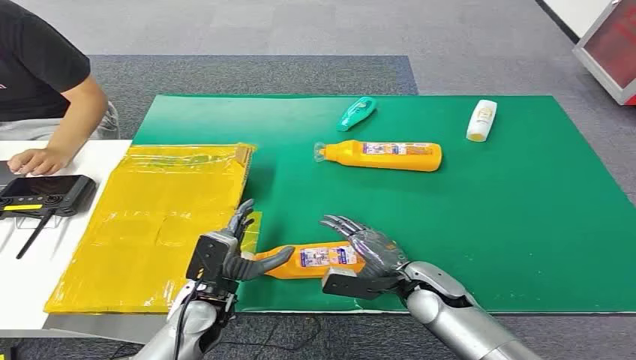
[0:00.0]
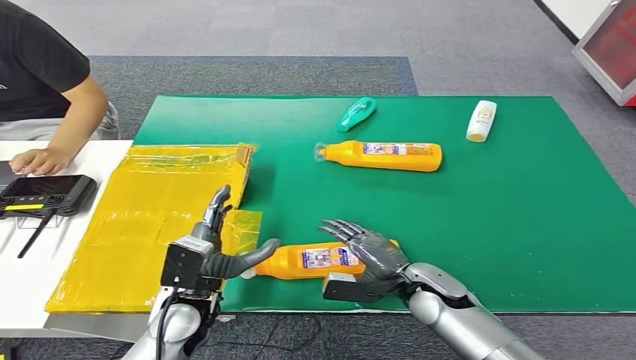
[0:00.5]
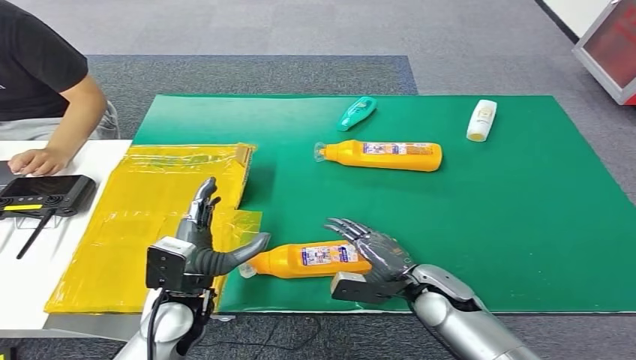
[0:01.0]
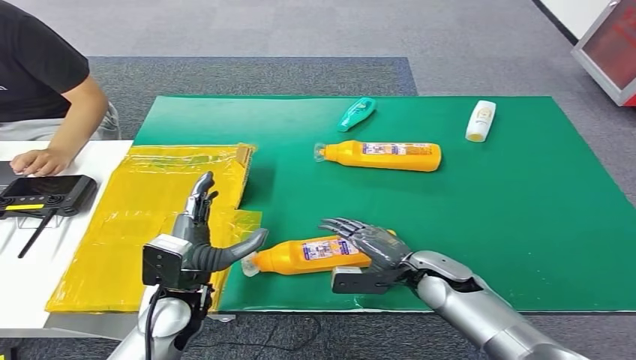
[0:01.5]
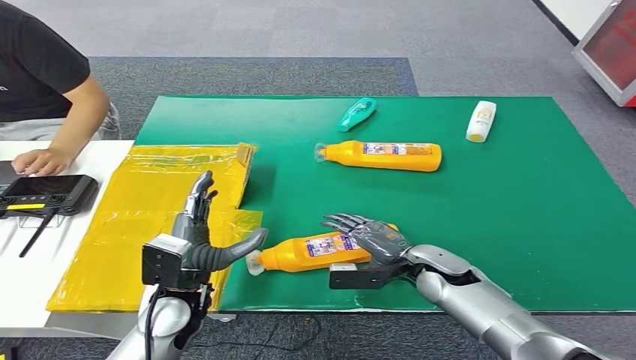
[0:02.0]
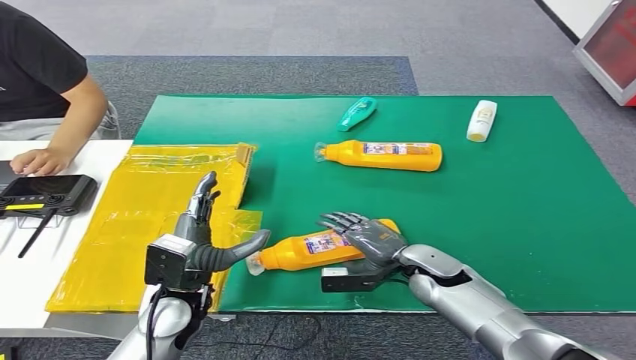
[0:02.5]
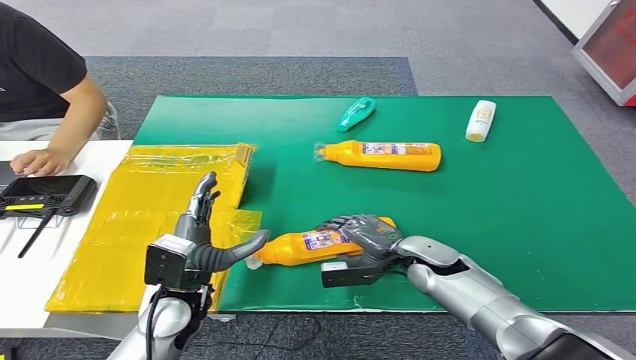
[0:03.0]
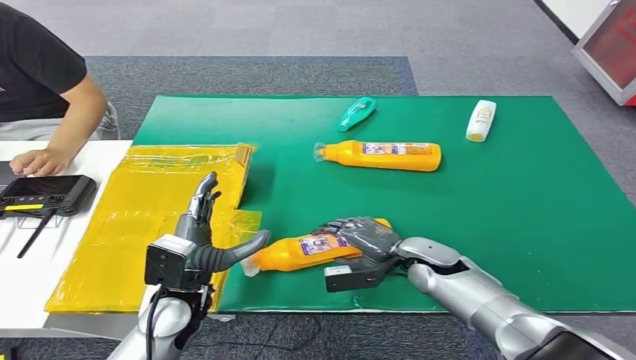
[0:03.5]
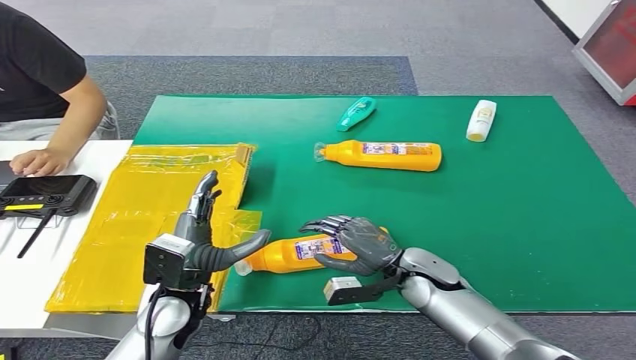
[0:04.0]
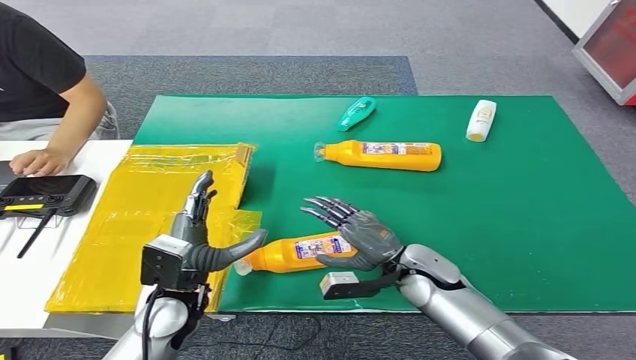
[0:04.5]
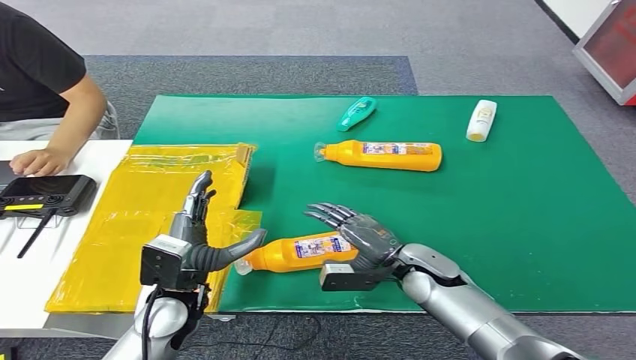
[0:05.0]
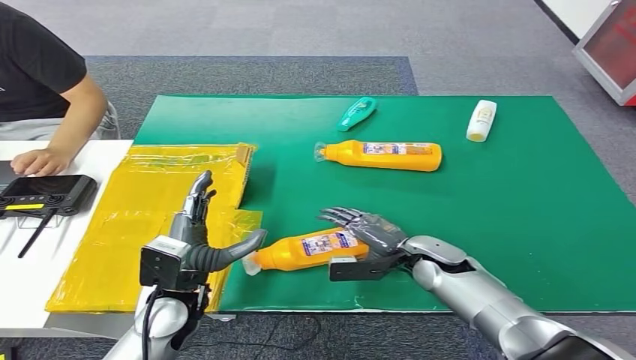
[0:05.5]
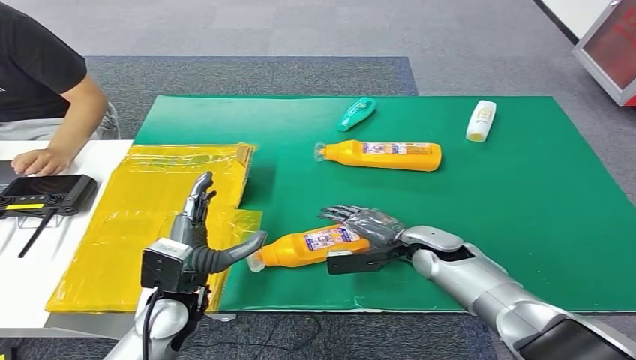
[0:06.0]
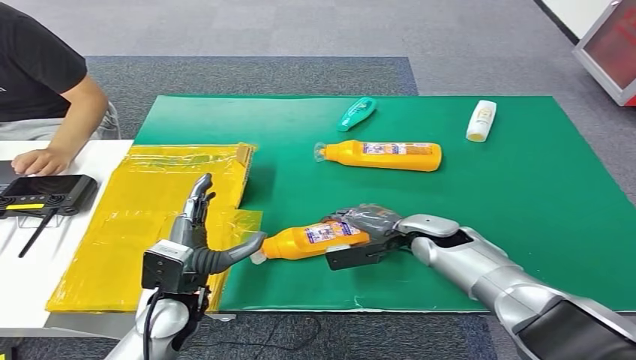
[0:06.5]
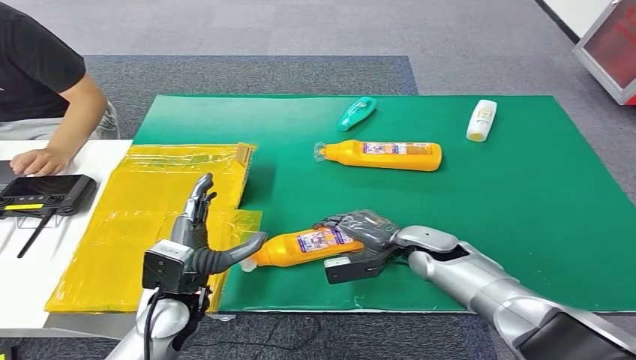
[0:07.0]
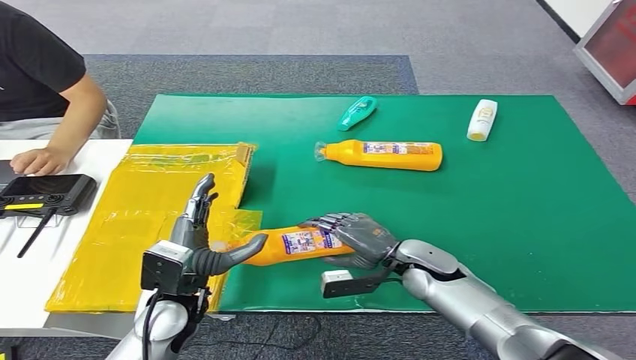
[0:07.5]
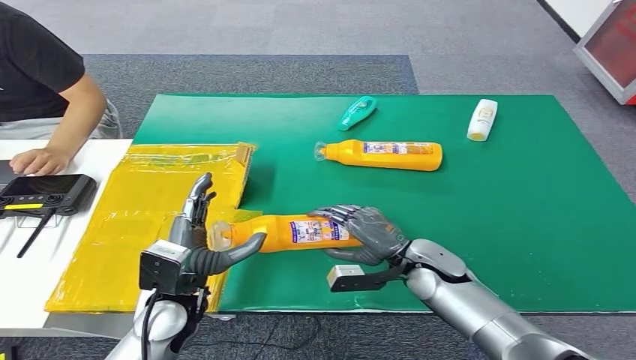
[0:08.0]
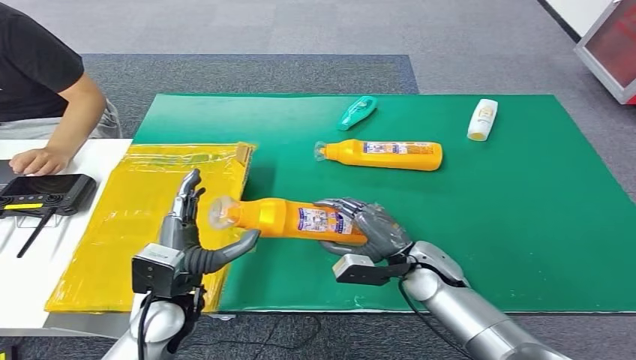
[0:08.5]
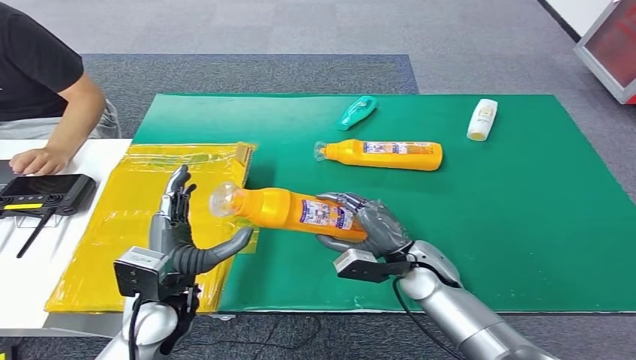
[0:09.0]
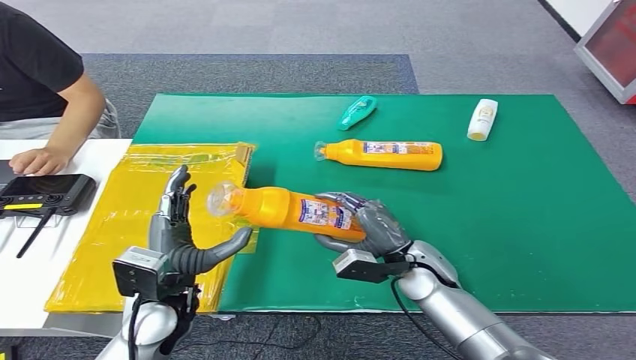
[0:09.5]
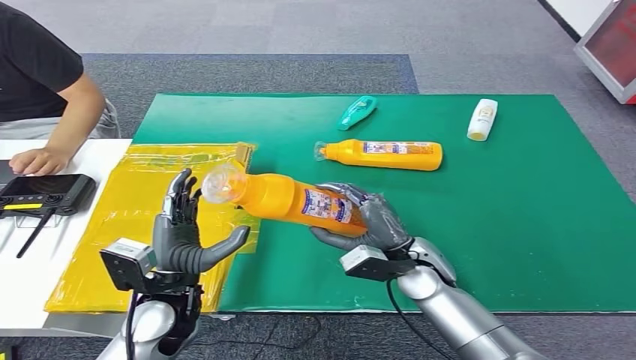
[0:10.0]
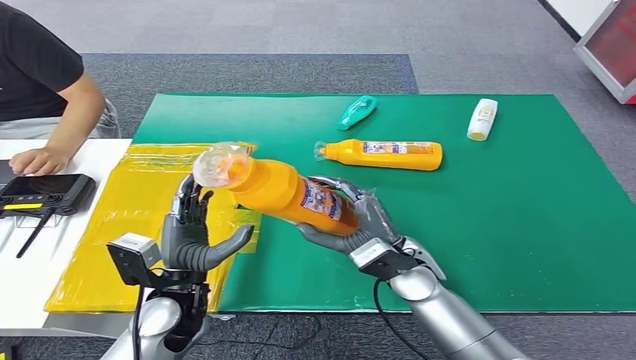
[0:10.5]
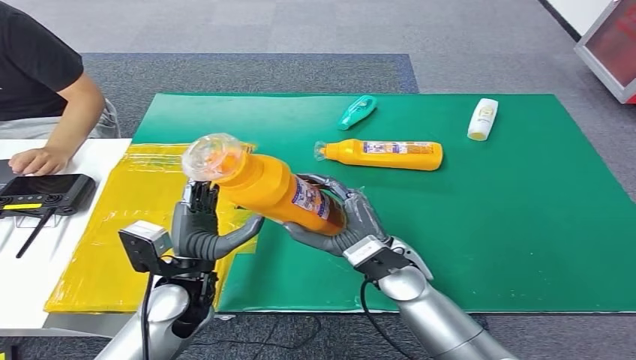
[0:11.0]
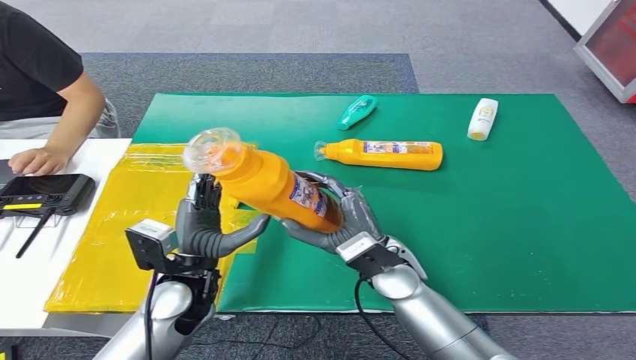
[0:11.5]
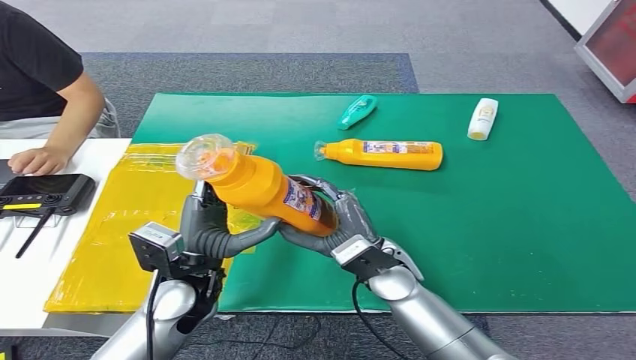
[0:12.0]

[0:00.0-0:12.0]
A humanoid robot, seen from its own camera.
Step, 0:00.0 to 0:11.5: Pick up the bottle from the table.
0:04.0 to 0:06.0: The right hand goes about 5 cm forward.
0:10.0 to 0:12.0: The right hand shifts roughly 5 cm to the left.

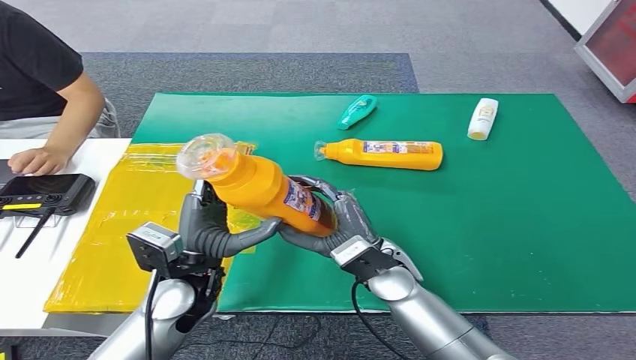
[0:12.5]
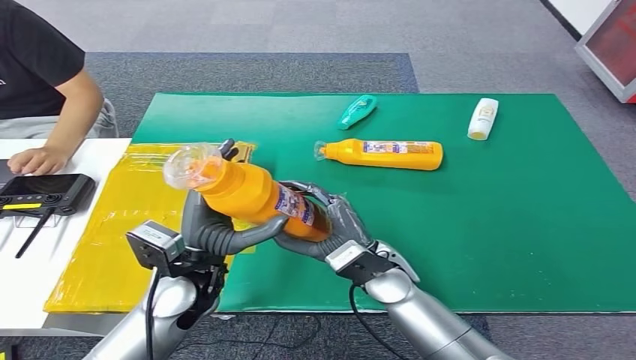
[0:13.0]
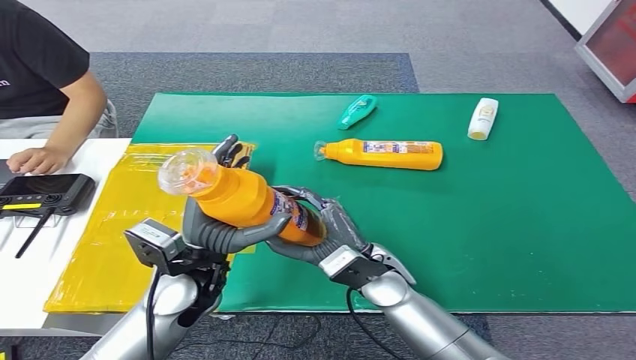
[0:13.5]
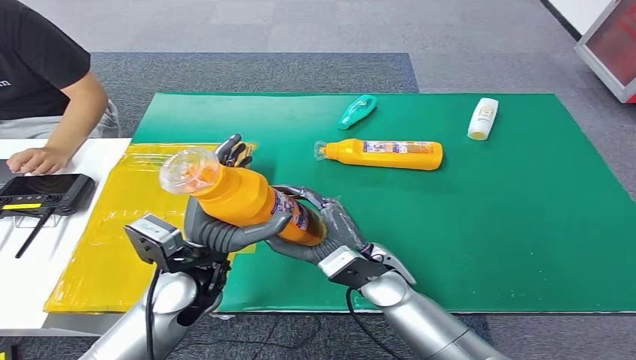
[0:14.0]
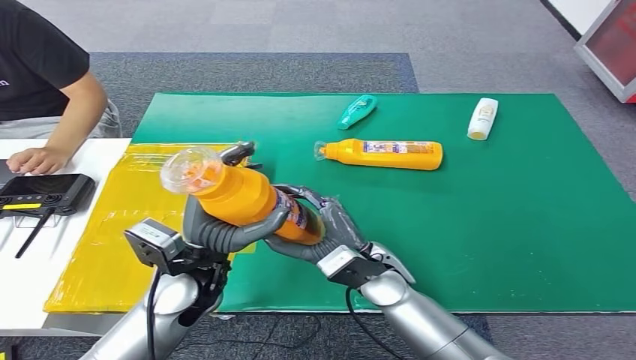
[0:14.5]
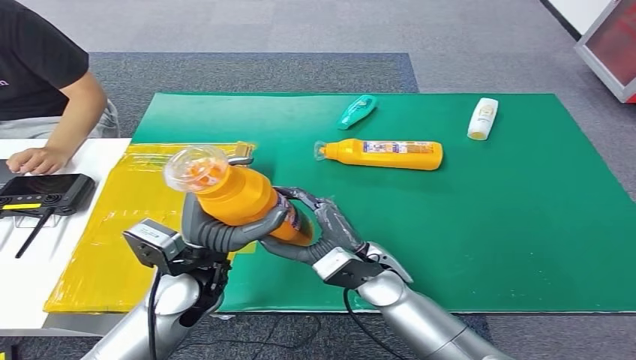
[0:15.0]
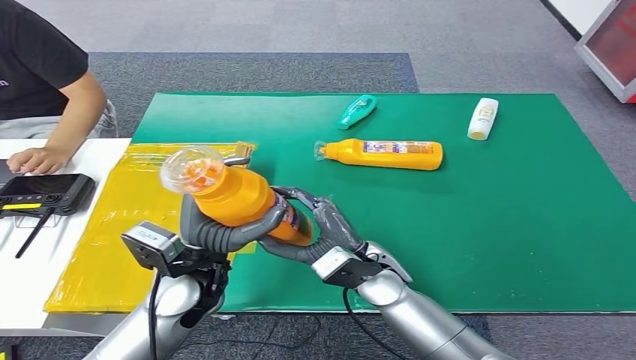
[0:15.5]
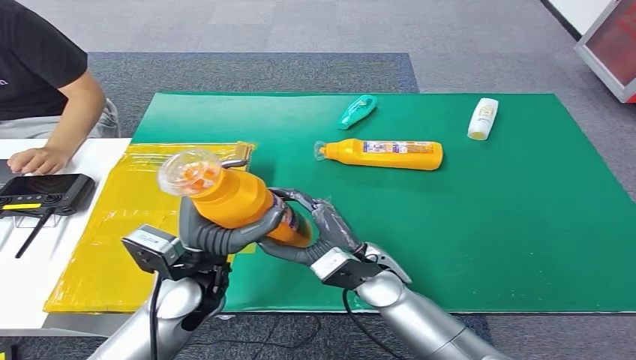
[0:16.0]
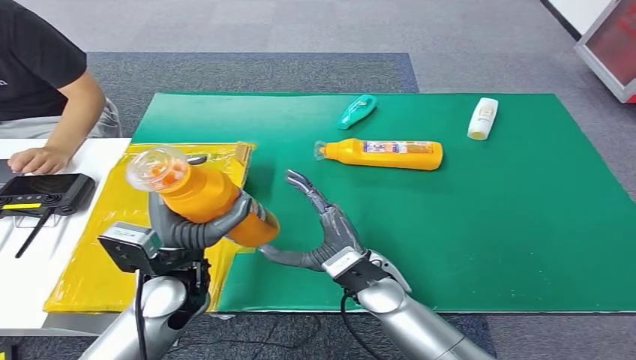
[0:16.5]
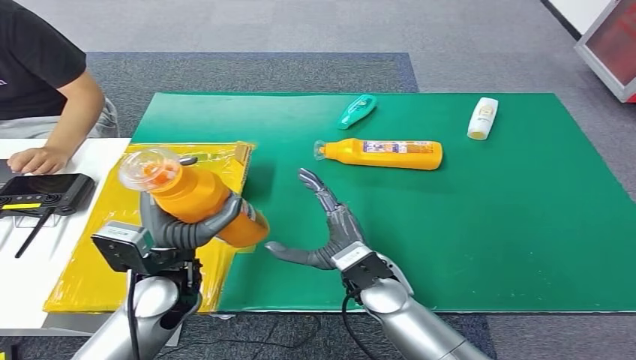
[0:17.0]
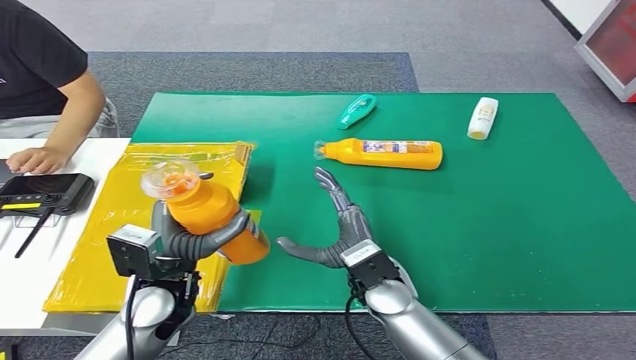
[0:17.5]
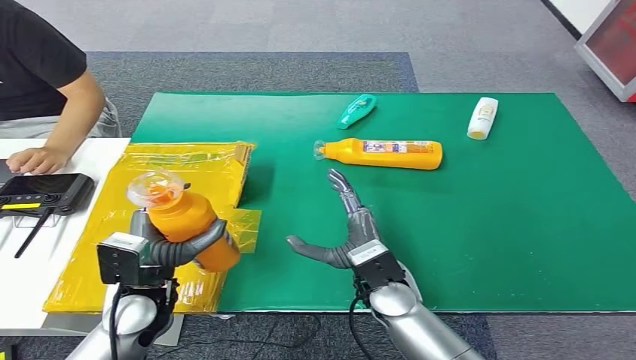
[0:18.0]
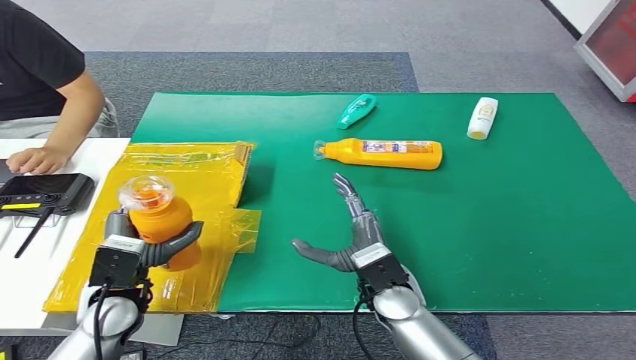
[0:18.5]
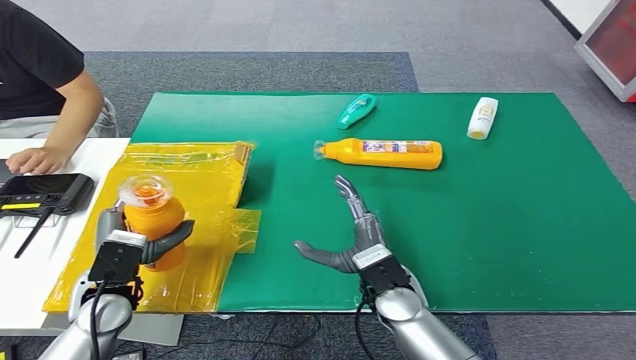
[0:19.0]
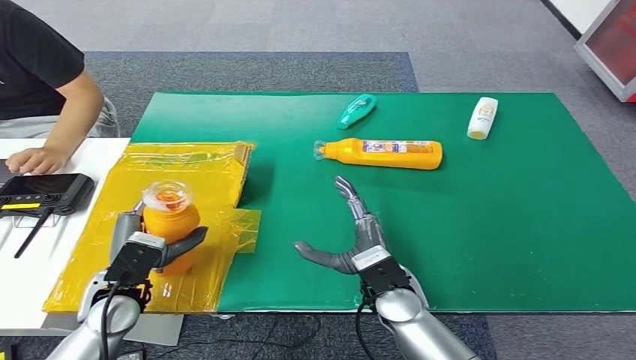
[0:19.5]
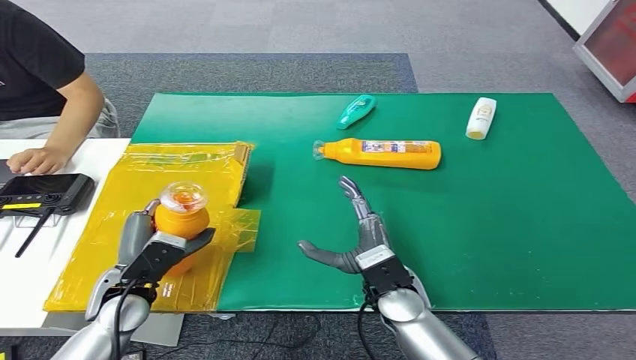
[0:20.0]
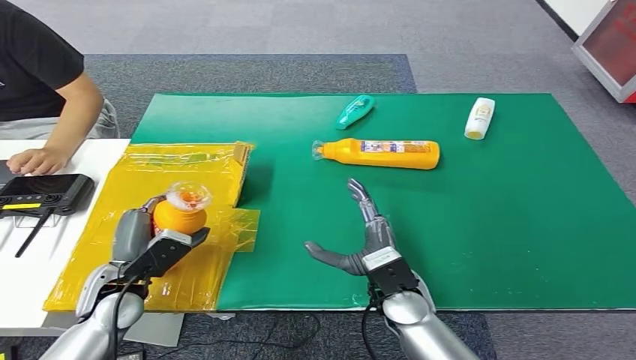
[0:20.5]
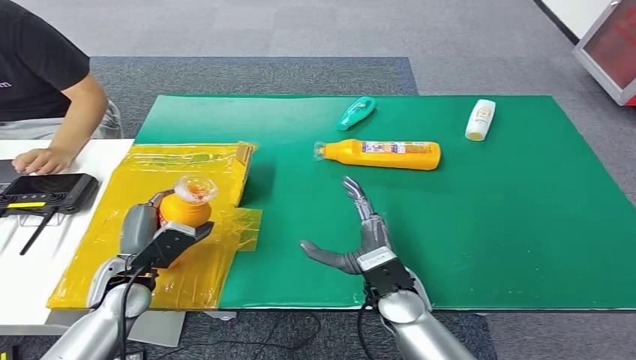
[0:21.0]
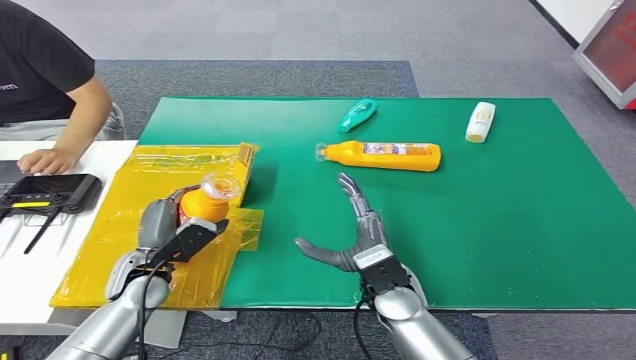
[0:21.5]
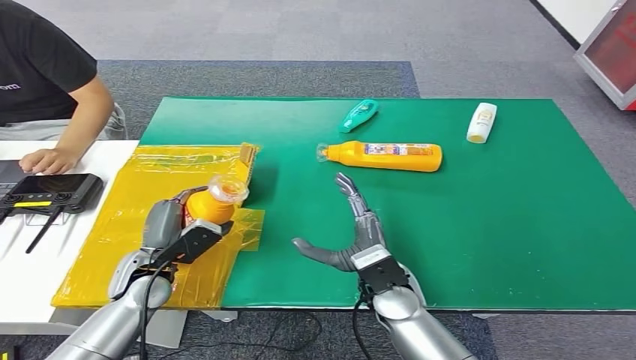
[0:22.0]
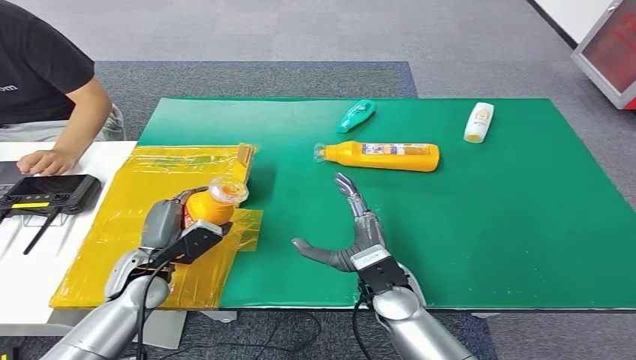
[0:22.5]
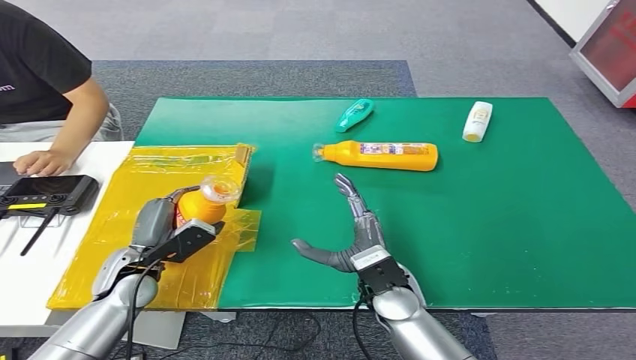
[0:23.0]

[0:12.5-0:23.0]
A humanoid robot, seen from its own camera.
0:12.5 to 0:16.5: The hands move only a little.
0:16.5 to 0:19.0: The left hand goes approximately 10 cm to the left and downward.
0:19.0 to 0:21.0: The hands make only small movements.
0:21.0 to 0:23.0: There are only small adjustments of the hands.
